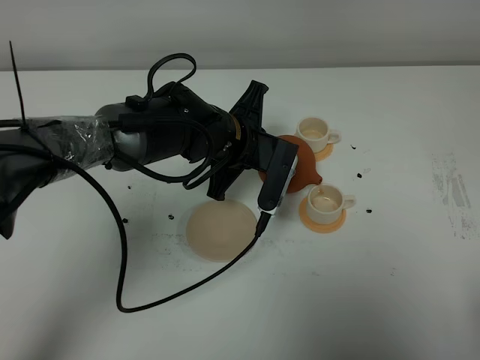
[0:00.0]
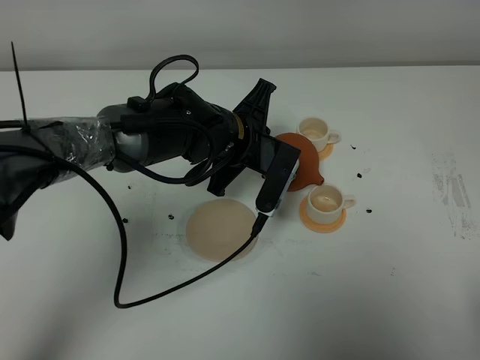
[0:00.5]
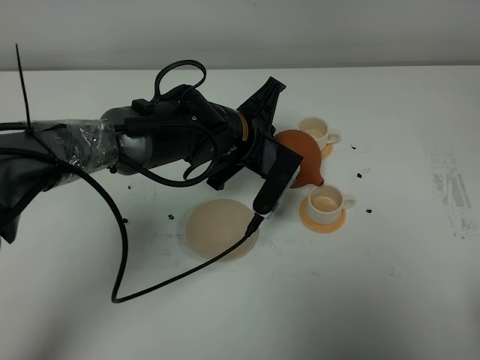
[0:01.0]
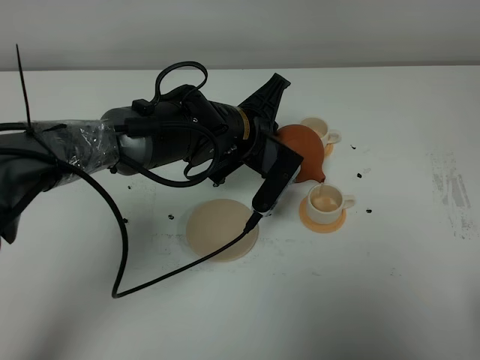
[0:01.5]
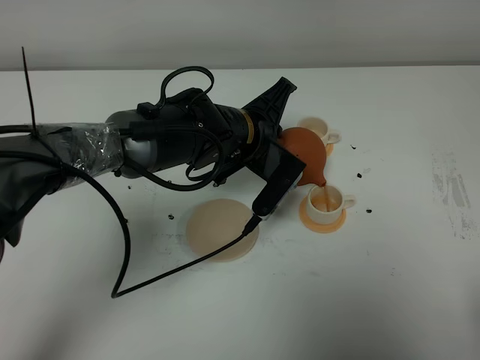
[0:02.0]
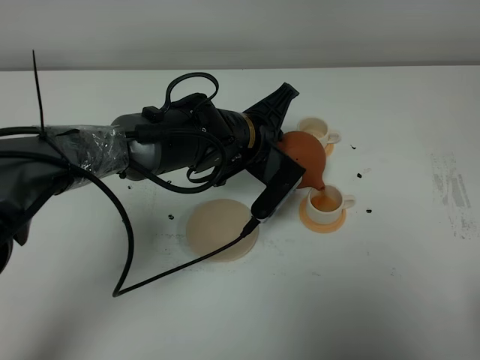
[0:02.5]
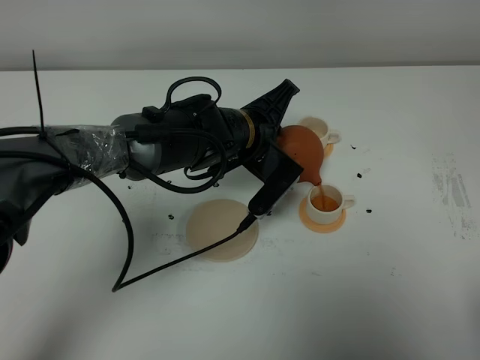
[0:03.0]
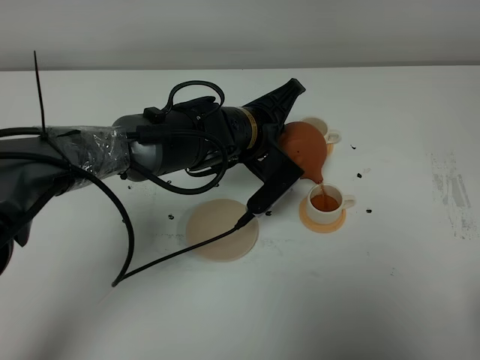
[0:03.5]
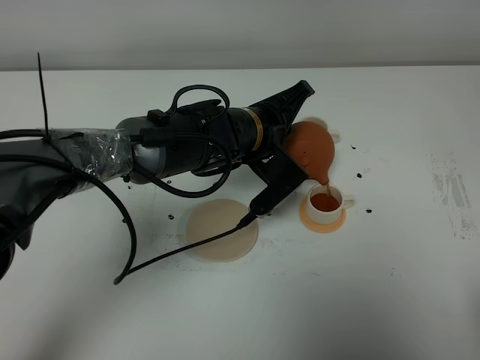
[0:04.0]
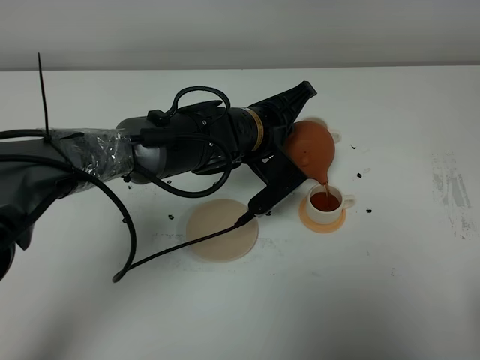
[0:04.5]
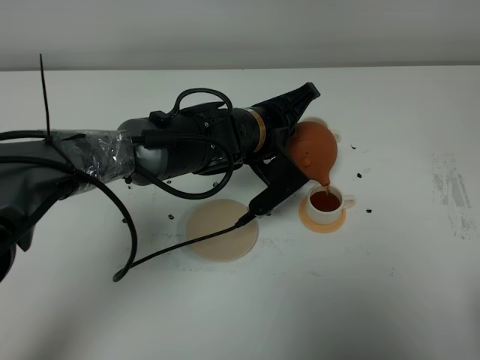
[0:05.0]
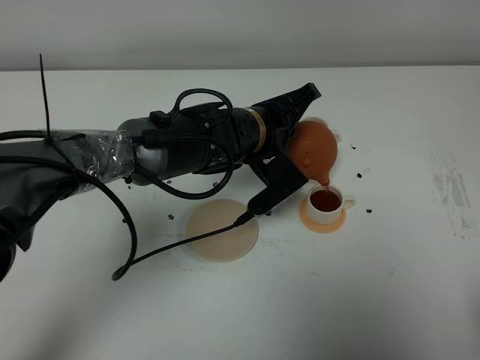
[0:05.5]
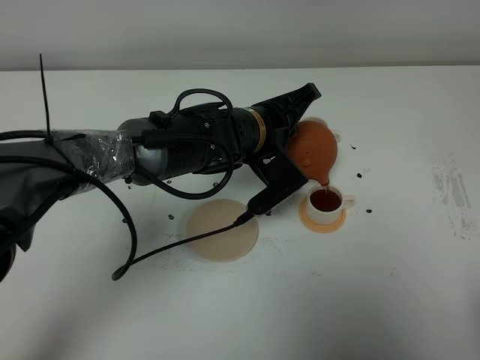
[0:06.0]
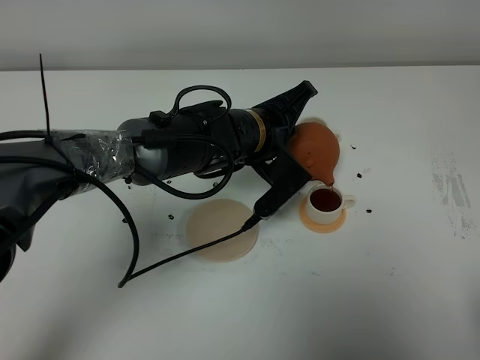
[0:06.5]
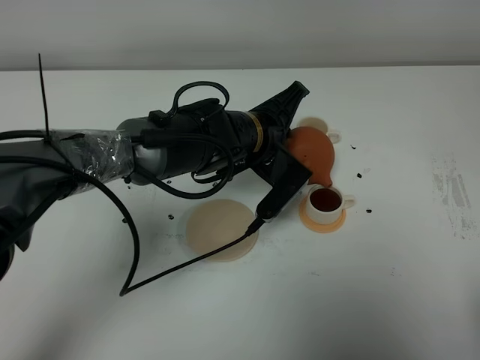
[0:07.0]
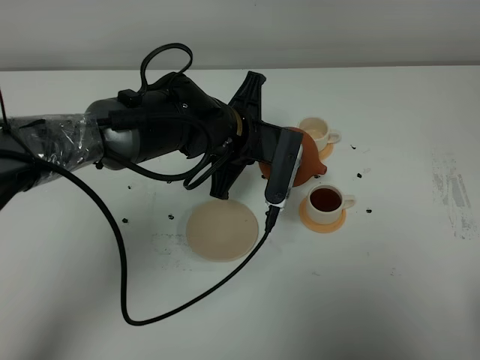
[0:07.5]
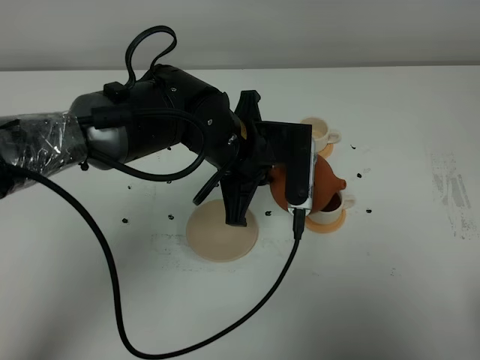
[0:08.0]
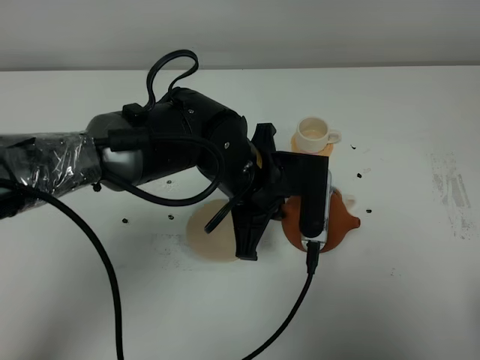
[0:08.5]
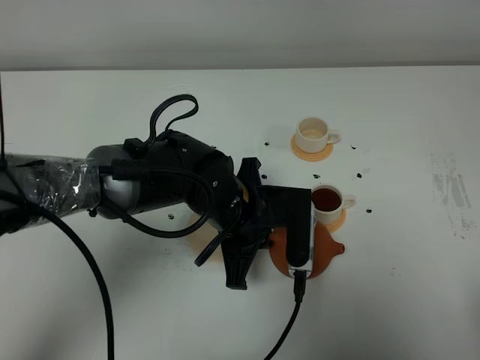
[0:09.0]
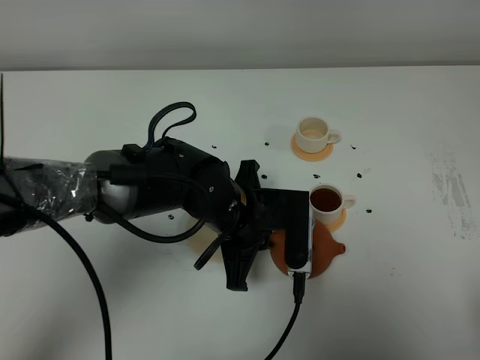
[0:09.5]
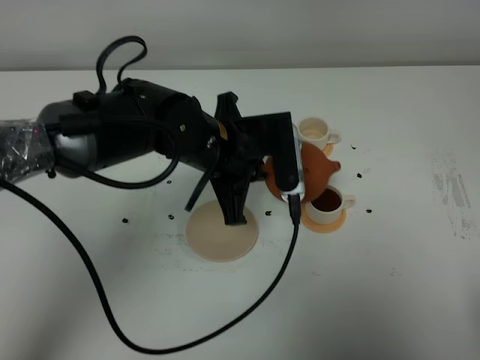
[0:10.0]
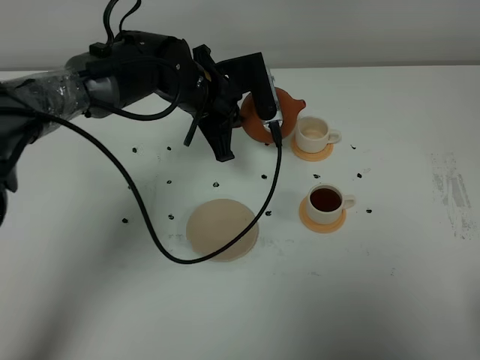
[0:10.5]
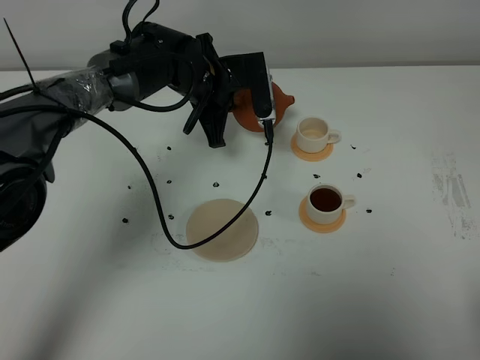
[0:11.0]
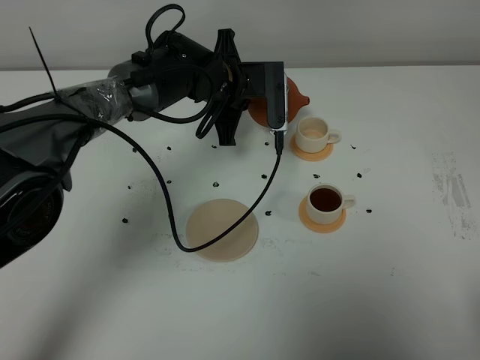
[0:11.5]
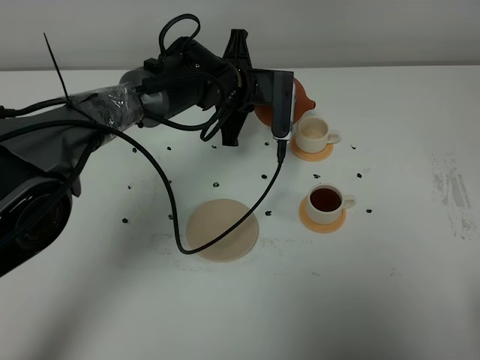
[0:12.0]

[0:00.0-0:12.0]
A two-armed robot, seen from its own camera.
Task of the whole recording: grasp the brown teapot and pour the tea into the two white teacups one by one, put the brown teapot back in its original place.
Step, 0:00.0 to 0:07.0: Pour tea into the teacup with the left gripper.
0:00.0 to 0:02.0: The grippers make only small movements.
0:02.0 to 0:04.0: There are only small adjustments of the grippers.
0:04.0 to 0:06.0: Both grippers stay put.
0:06.0 to 0:08.0: The left gripper shifts by some 5 cm.
0:10.0 to 0:12.0: The left gripper heads forward, covering about 15 cm.

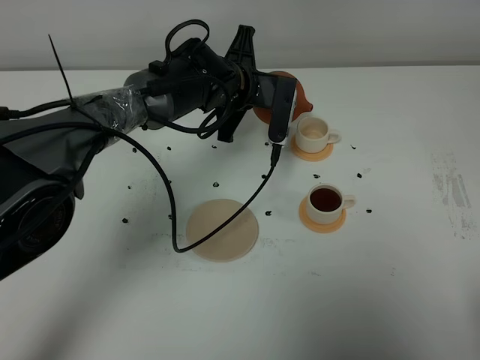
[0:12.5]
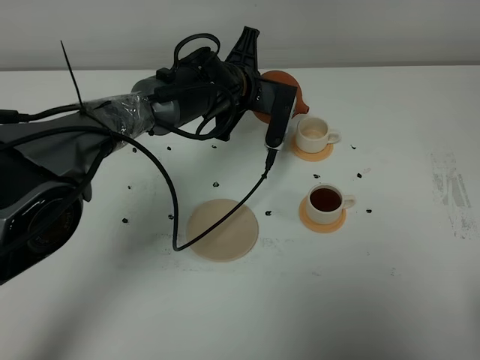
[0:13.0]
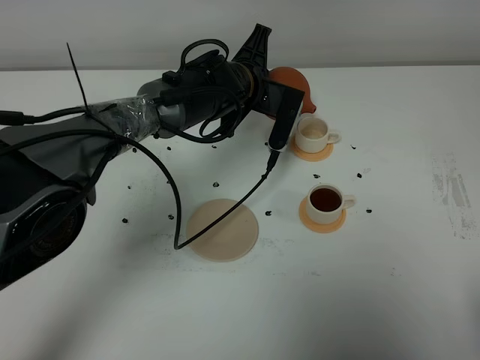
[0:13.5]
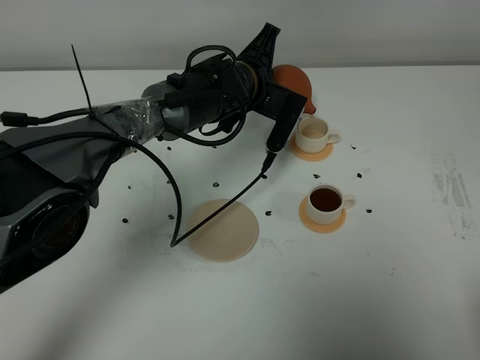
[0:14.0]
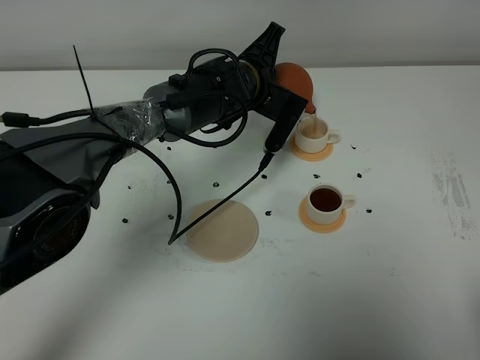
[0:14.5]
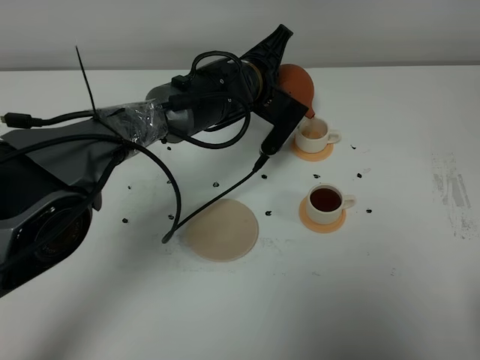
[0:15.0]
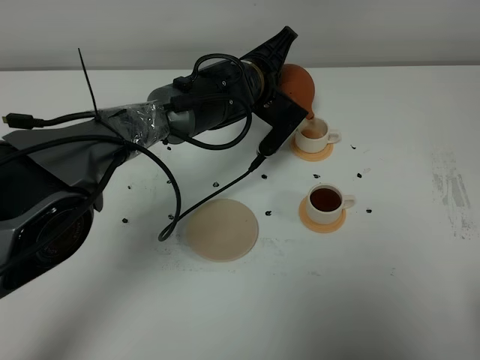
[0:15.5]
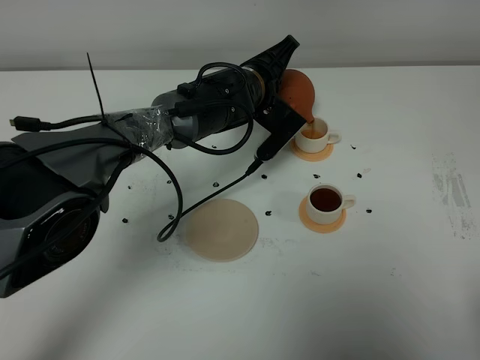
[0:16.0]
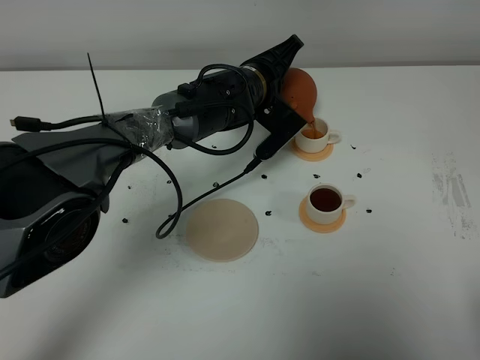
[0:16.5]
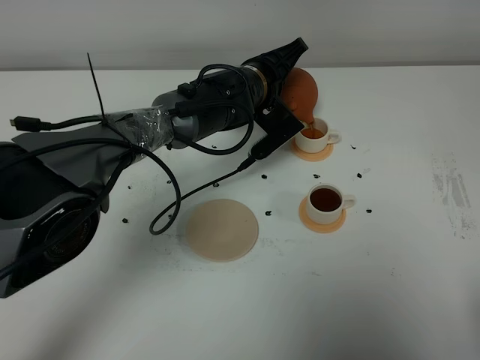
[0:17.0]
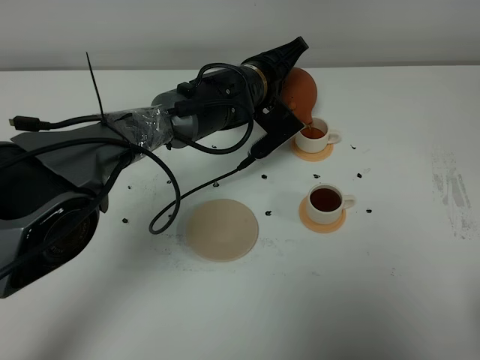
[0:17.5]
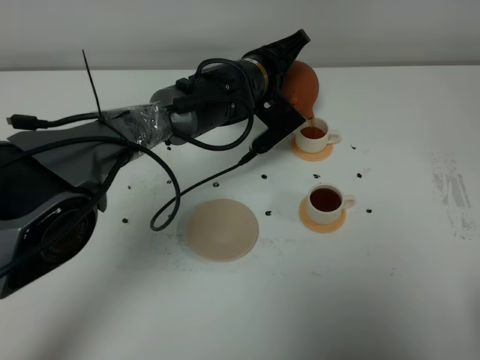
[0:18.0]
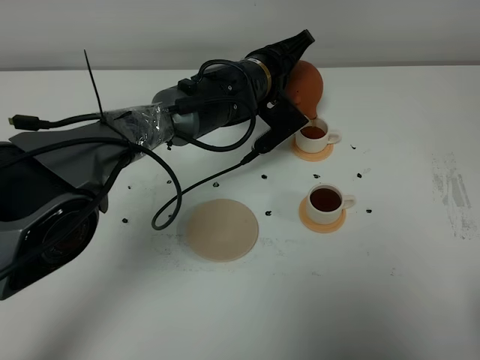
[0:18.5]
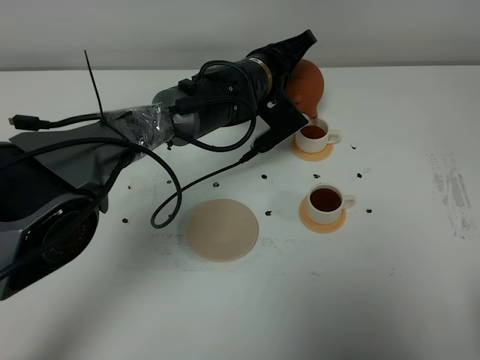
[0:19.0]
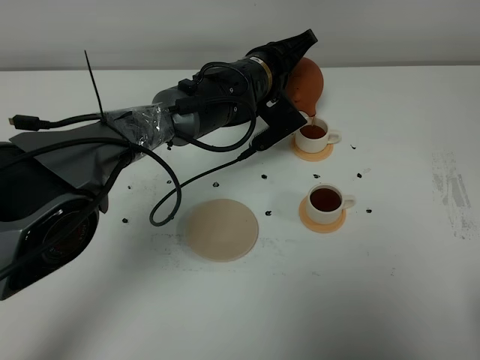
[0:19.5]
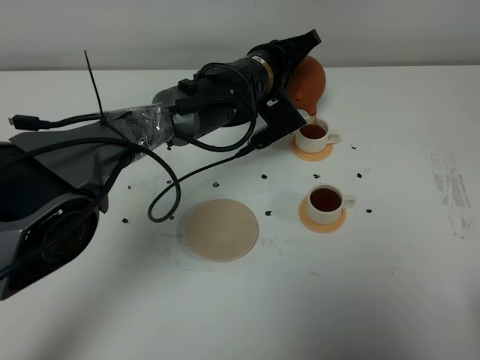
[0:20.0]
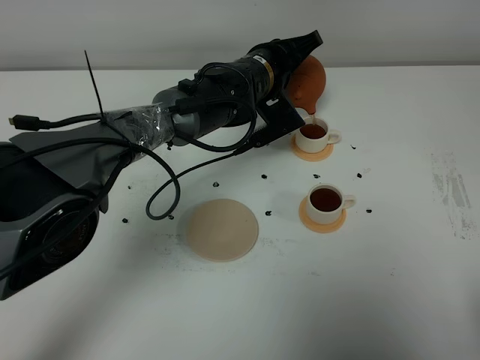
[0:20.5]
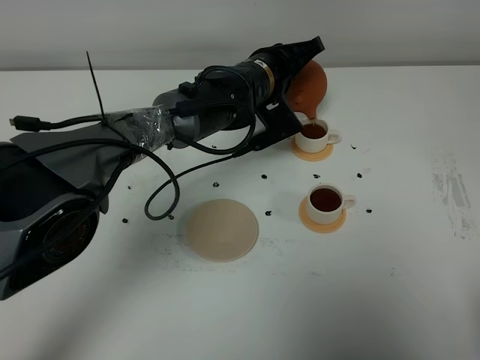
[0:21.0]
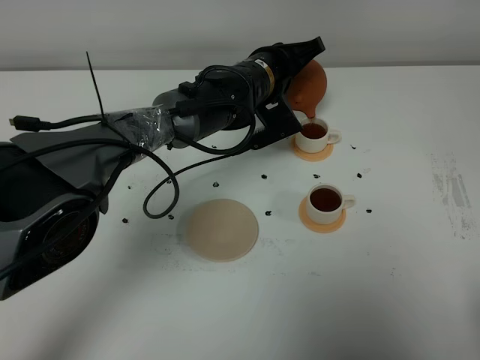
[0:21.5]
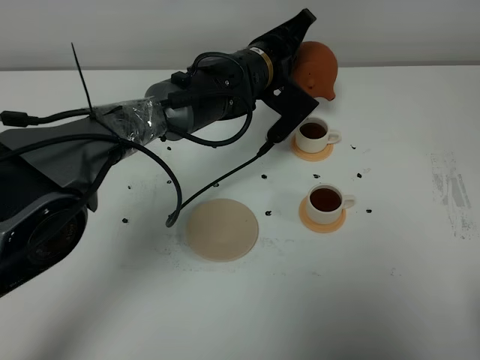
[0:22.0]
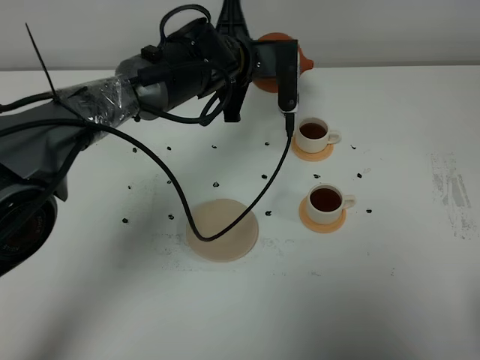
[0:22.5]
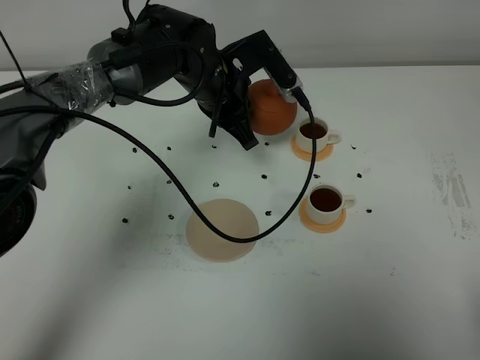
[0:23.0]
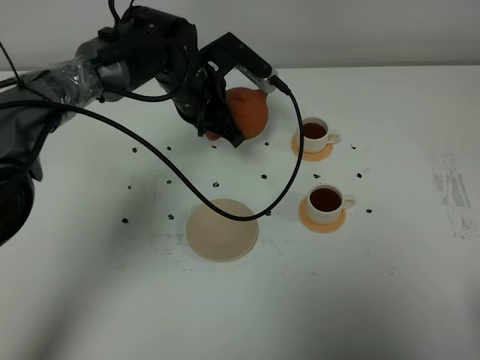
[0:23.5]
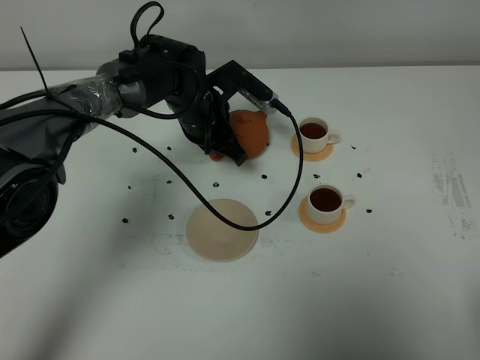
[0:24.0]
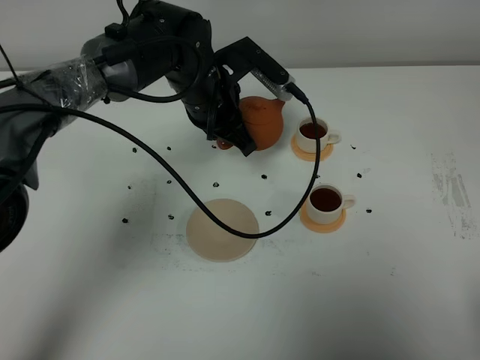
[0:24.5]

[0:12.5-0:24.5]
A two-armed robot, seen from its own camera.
Task of the whole recording: grasp the brown teapot and pour the tea into the two white teacups one by one, put the brown teapot back in its original place.
Step, 0:12.5 to 0:22.0: Pour tea into the teacup with the left gripper.
0:14.5 to 0:16.5: The grippers make only small movements.
0:16.5 to 0:20.5: The grippers move only a little.
0:20.5 to 0:22.5: The left gripper ends up about 5 cm from where it was.

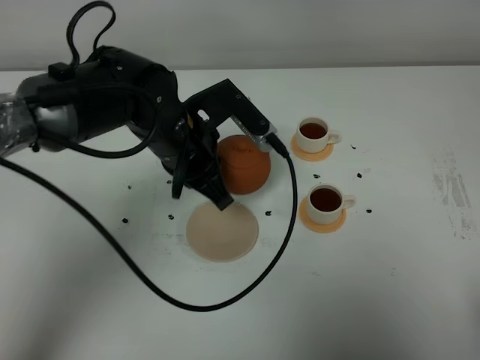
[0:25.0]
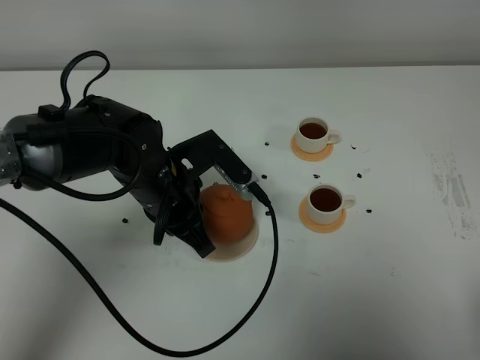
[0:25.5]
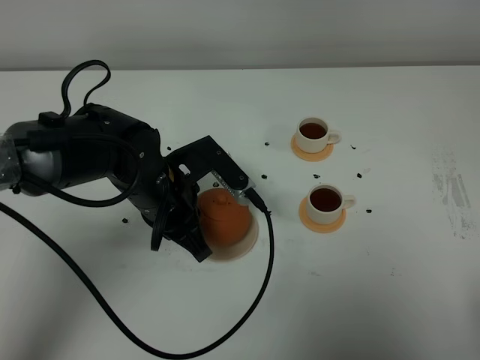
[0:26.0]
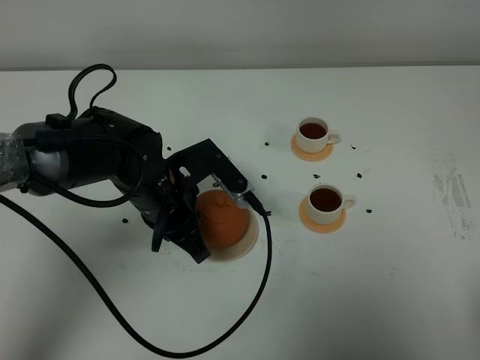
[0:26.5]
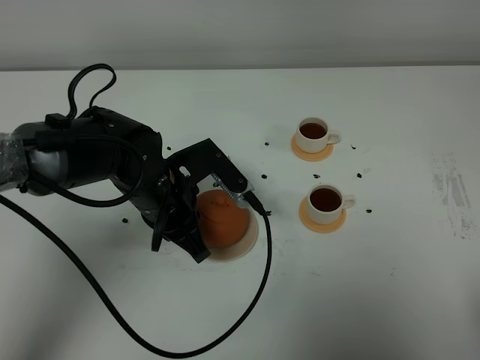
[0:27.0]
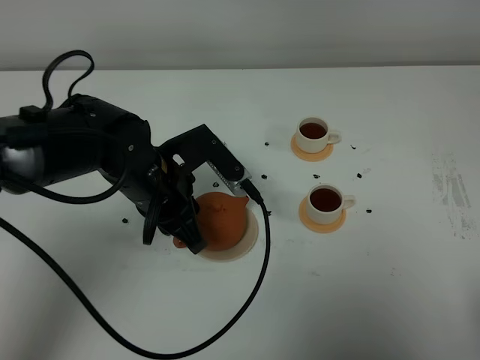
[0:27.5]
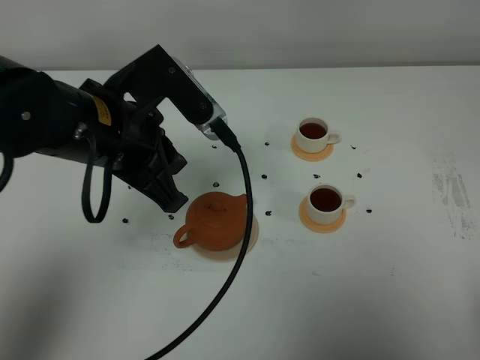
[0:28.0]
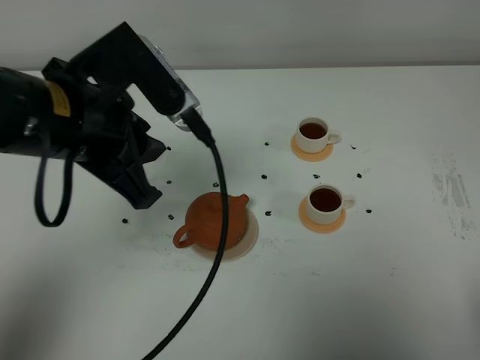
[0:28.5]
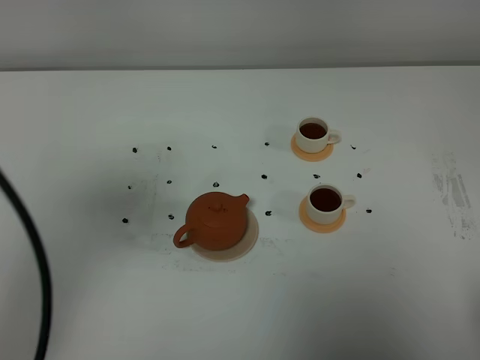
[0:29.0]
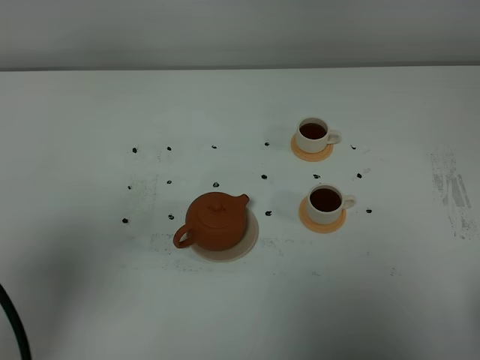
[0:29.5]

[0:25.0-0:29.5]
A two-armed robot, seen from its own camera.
Task of the whole recording: grasp the brown teapot and pour the tea into the two white teacups one by one, put the brown teapot back in its original place.
0:25.0 to 0:27.0: The left gripper moves downward, roughly 5 cm.
0:27.0 to 0:29.5: The left gripper shifts roughly 35 cm backward, upward and to the left.
